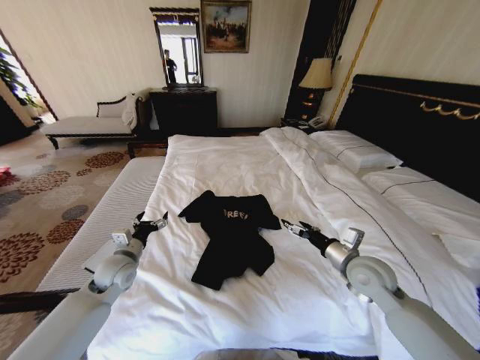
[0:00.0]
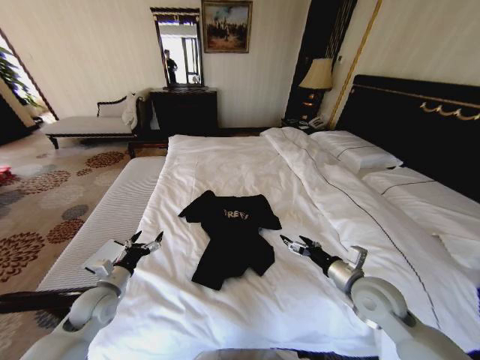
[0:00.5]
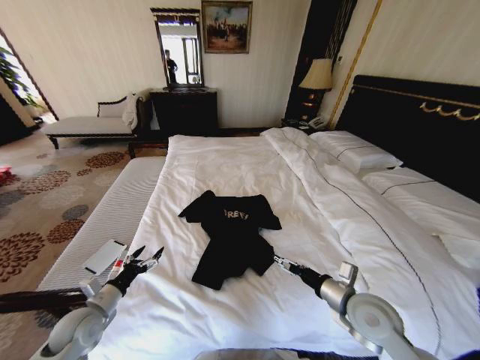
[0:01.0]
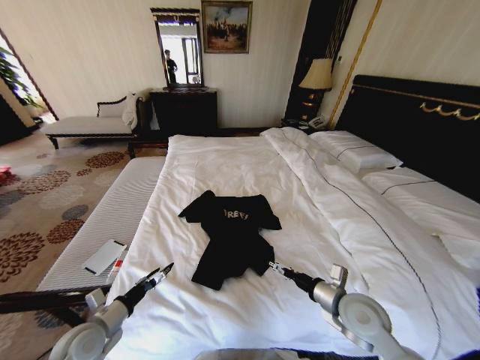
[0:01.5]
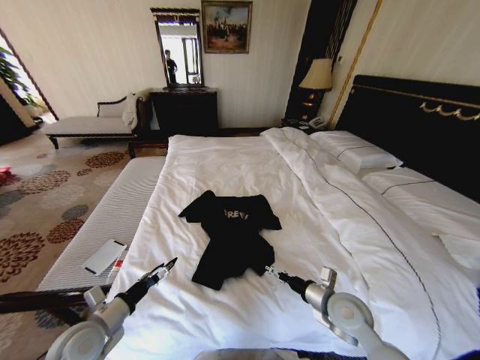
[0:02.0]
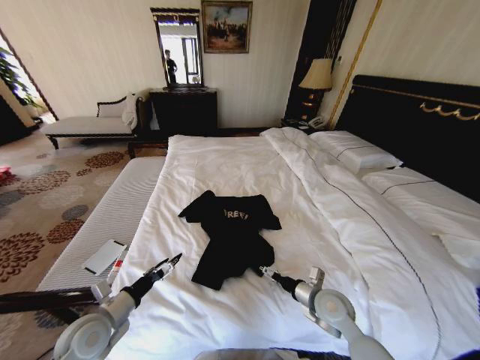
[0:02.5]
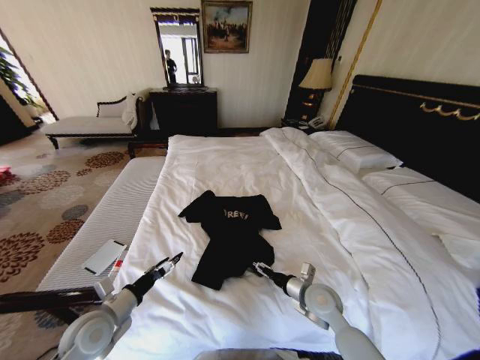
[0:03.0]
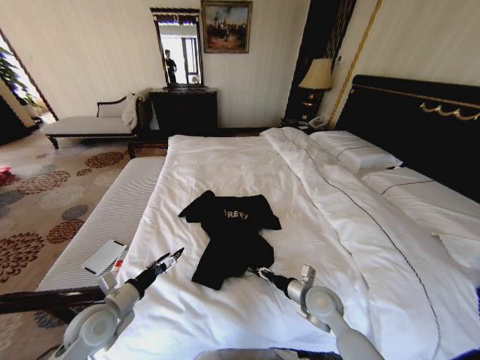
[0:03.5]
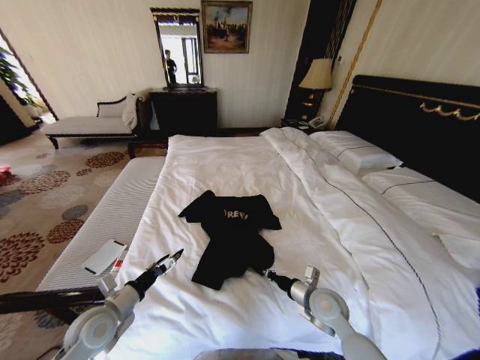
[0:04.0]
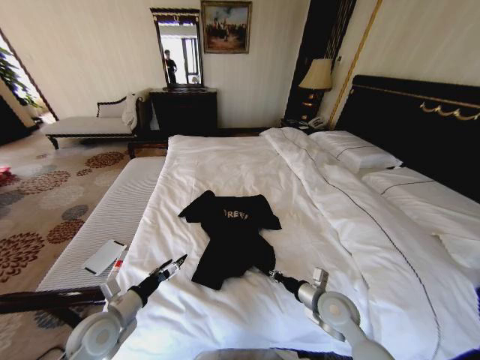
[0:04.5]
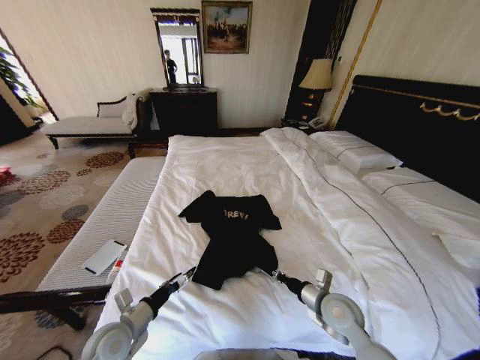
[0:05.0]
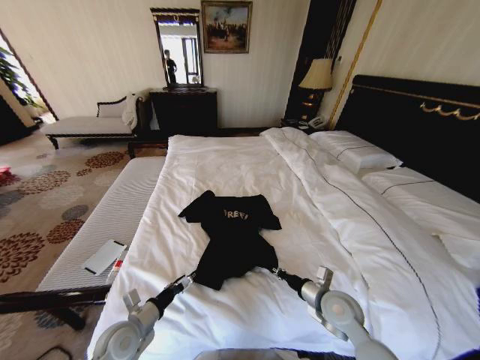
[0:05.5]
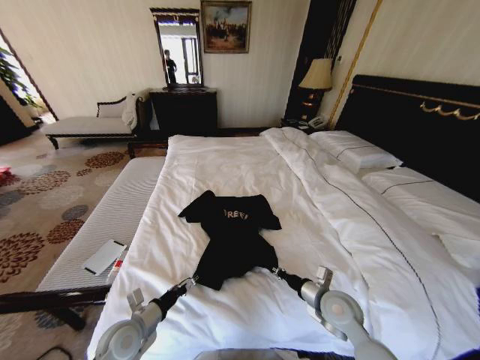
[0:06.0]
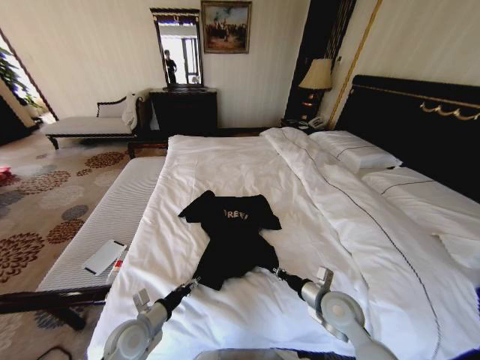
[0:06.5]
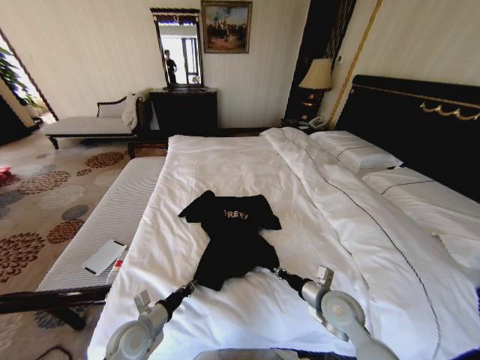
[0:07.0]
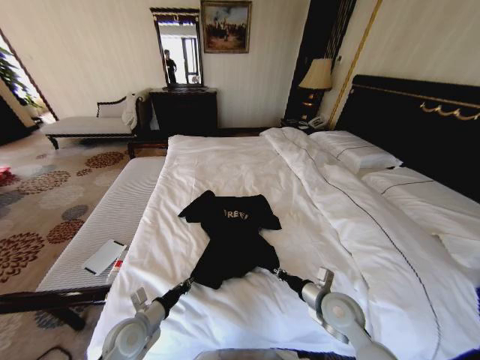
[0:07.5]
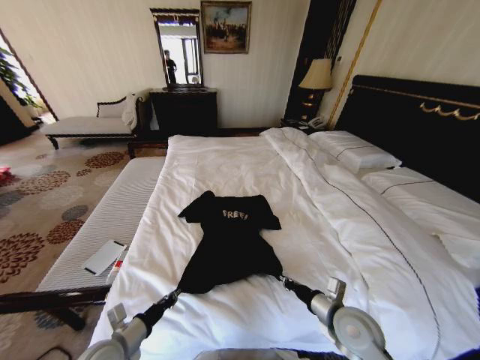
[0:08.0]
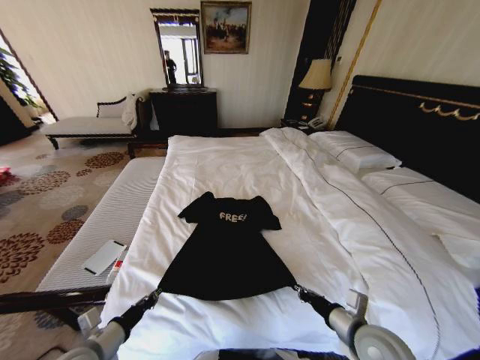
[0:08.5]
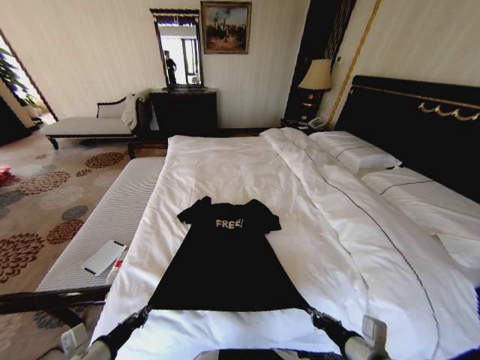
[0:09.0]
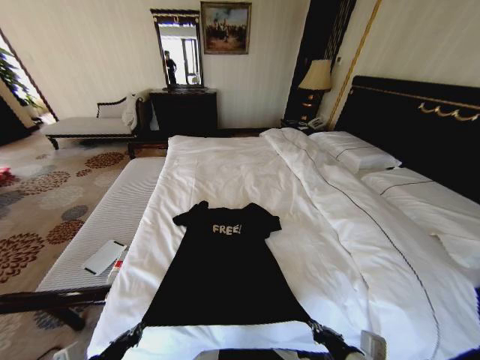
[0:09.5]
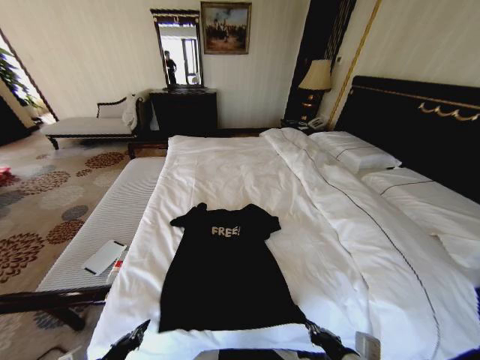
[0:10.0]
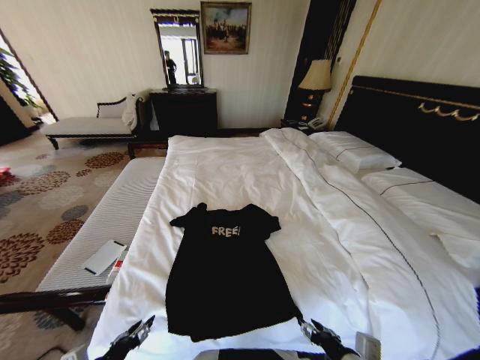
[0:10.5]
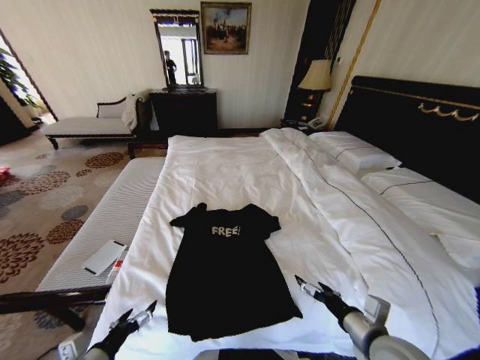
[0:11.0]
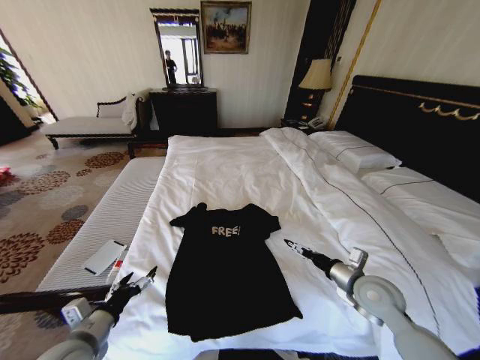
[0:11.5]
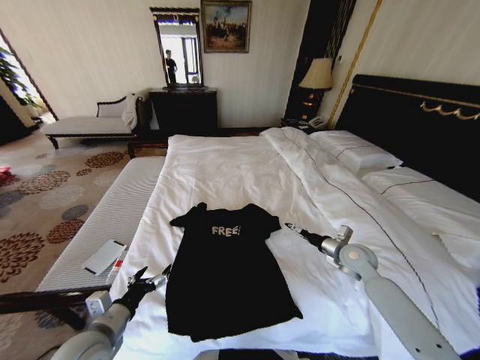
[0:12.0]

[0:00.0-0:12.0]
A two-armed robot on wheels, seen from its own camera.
Task of the whole recording: Fold the clothes on the bed.
0:00.0 to 0:02.0: The right gripper is displaced downward, backward and to the left by about 10 cm; the left gripper goes some 15 cm backward.
0:02.0 to 0:04.0: The right gripper moves about 5 cm, and closes up.
0:04.0 to 0:06.0: The left gripper travels downward by approximately 5 cm.
0:06.0 to 0:08.0: The left gripper closes.
0:08.0 to 0:10.0: Both grippers travel together backward, roughly 10 cm.
0:10.0 to 0:12.0: The left gripper is displaced forward by roughly 10 cm, and opens its fingers. Meanwhile the right gripper heads forward, covering some 30 cm, and opens.

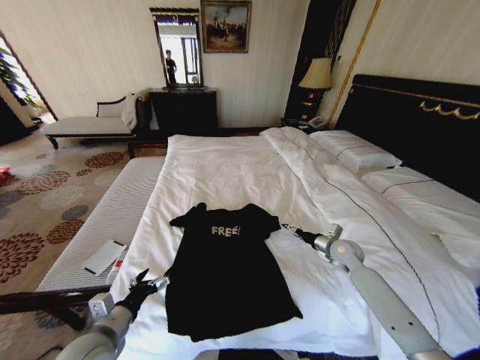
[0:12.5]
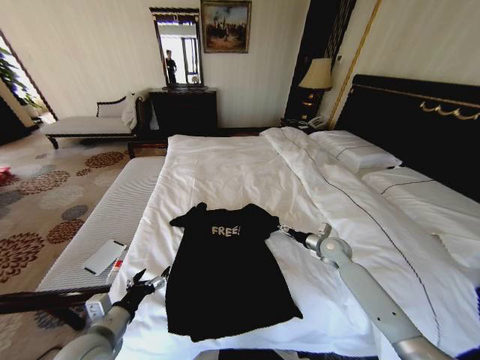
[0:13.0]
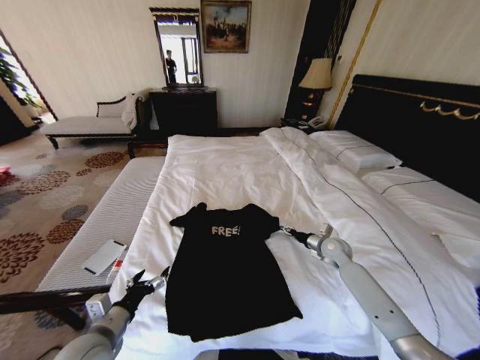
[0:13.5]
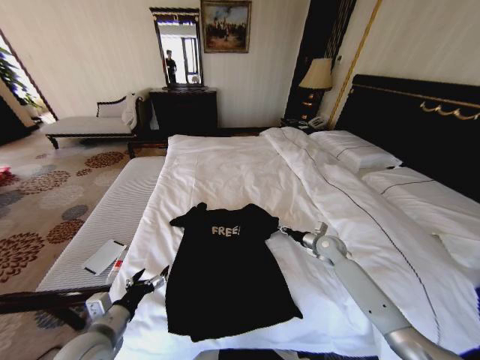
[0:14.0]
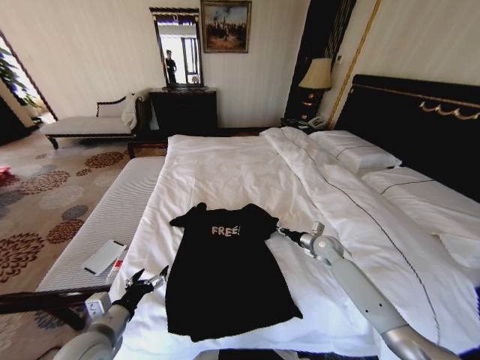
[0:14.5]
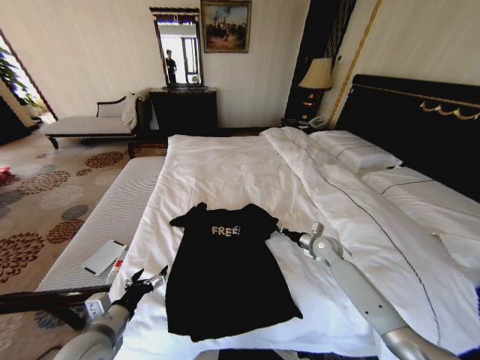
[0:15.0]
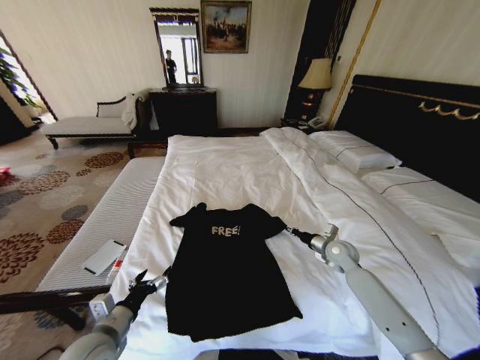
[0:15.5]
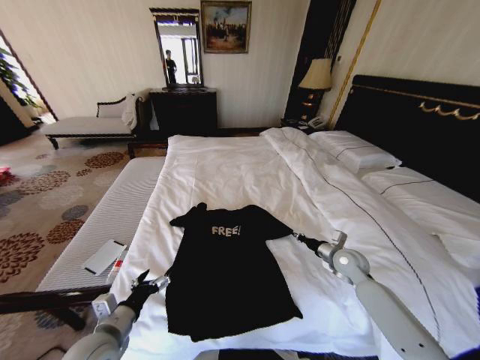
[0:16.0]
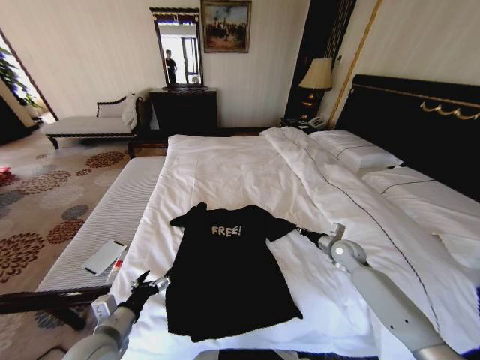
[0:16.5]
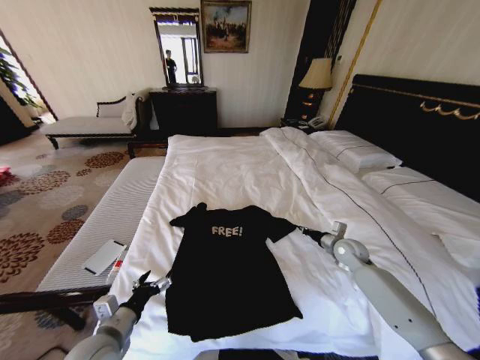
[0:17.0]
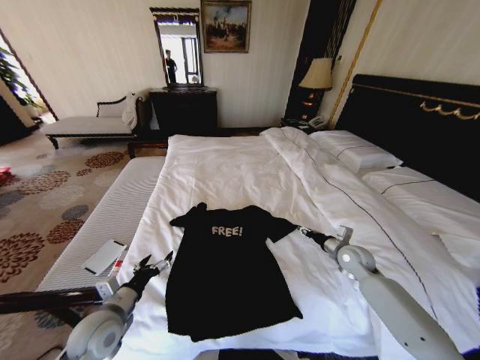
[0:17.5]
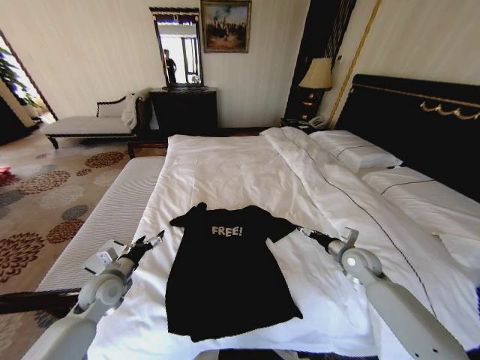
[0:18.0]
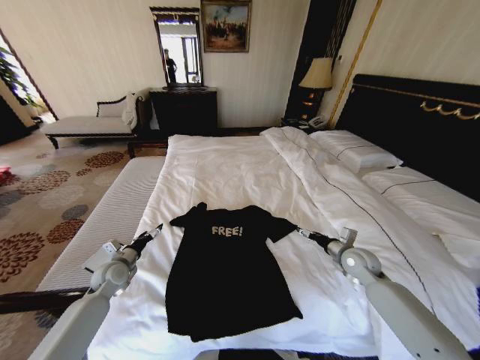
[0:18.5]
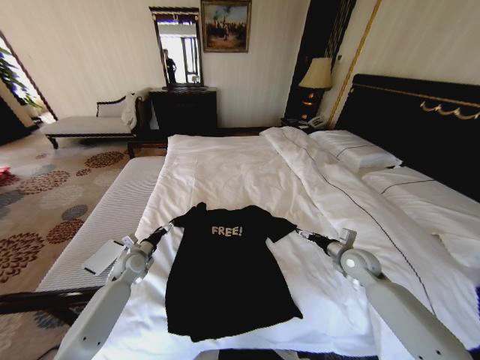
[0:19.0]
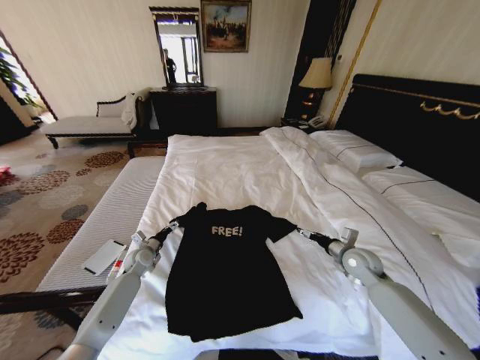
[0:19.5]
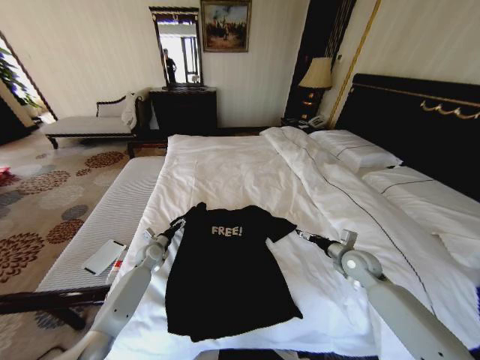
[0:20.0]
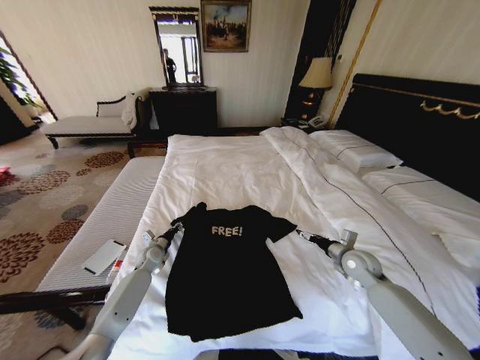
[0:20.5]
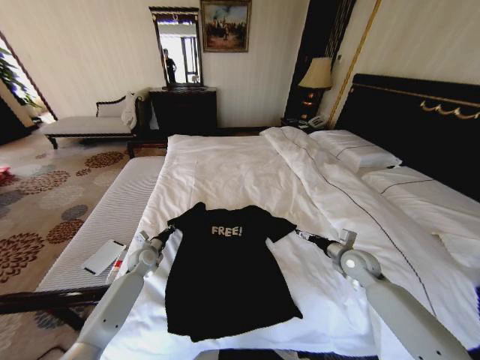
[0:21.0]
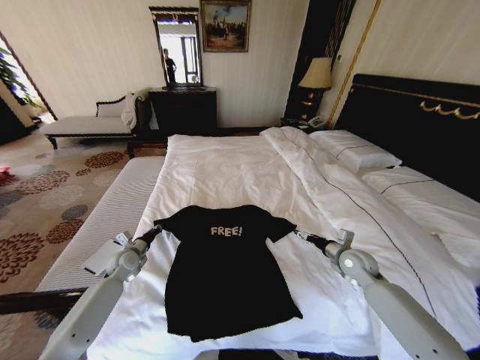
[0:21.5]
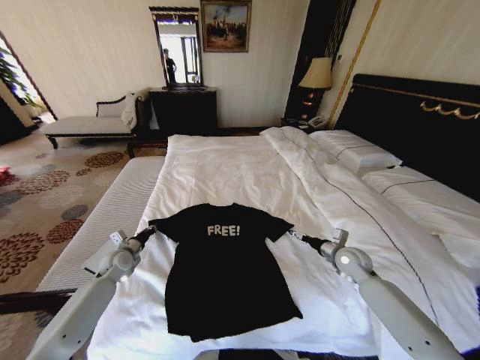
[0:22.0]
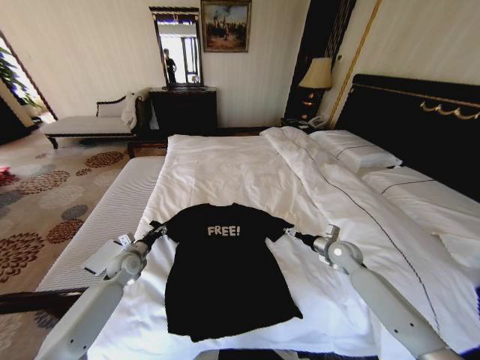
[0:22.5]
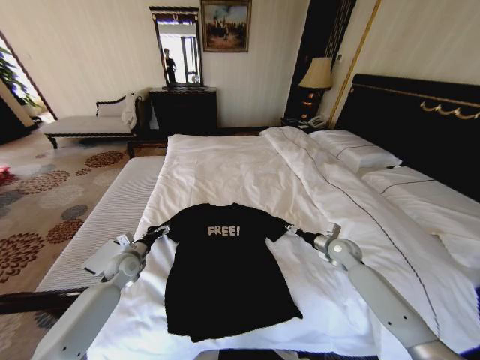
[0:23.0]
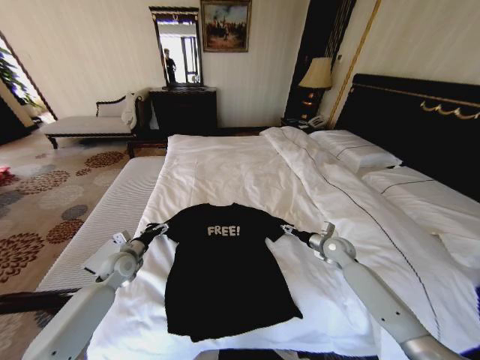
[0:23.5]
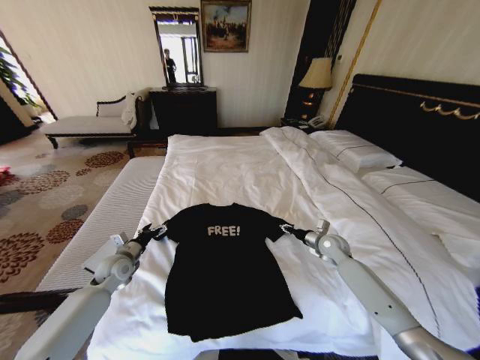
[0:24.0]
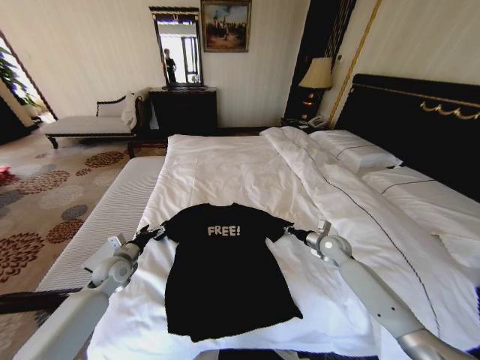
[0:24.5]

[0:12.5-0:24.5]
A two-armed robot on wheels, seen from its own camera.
Task of the whole recording: Fold the clothes on the bed.
0:12.5 to 0:14.5: The right gripper shifts by approximately 5 cm, and closes its fingers.
0:14.5 to 0:16.5: The right gripper ends up approximately 5 cm from where it was, and closes up.
0:16.5 to 0:18.5: The right gripper moves roughly 5 cm, and opens up. Meanwhile the left gripper moves forward and to the left, approximately 20 cm.
0:18.5 to 0:20.5: The left gripper goes roughly 15 cm forward, to the right and downward, and closes up.
0:20.5 to 0:22.5: The left gripper travels backward by some 5 cm, and closes, then opens again.
0:22.5 to 0:24.5: The right gripper closes its fingers, while the left gripper opens up.

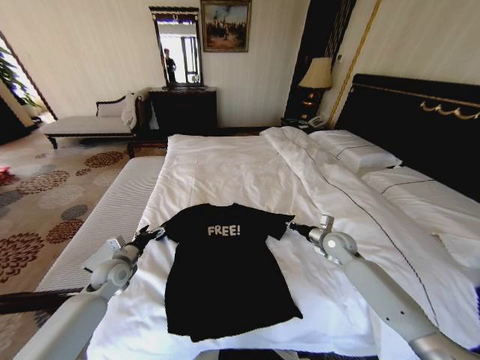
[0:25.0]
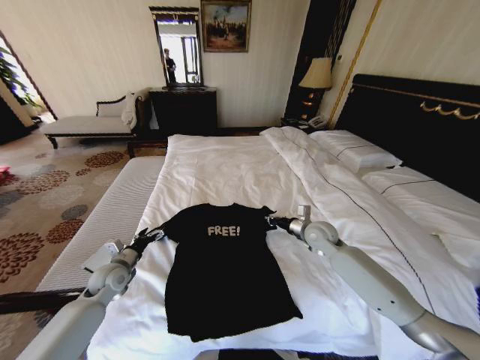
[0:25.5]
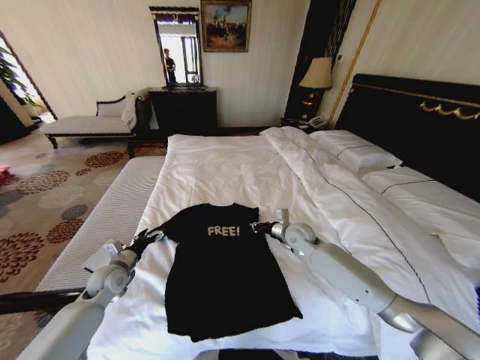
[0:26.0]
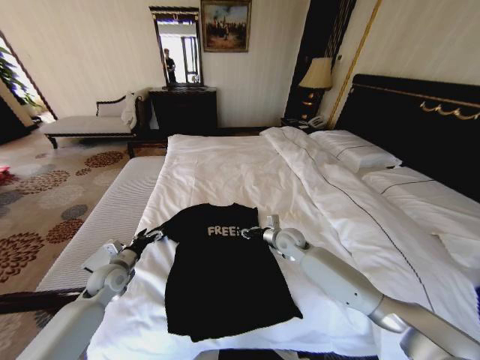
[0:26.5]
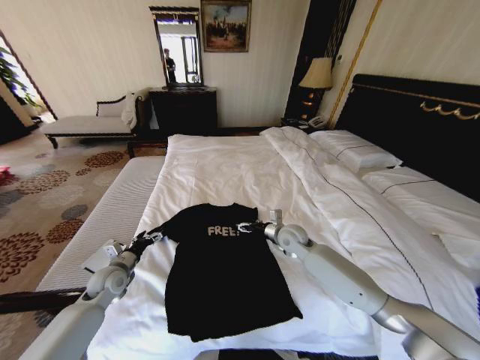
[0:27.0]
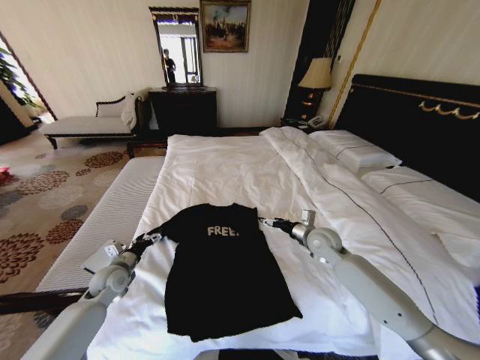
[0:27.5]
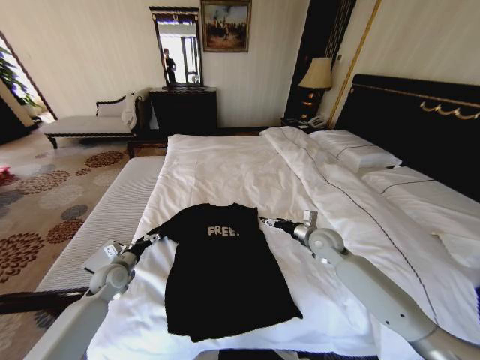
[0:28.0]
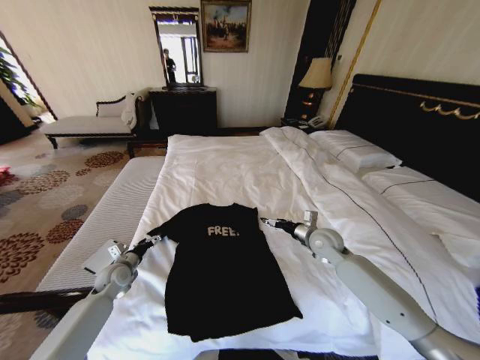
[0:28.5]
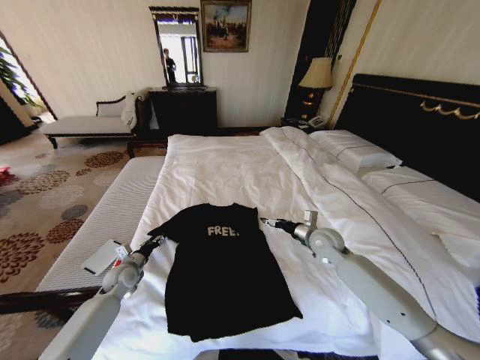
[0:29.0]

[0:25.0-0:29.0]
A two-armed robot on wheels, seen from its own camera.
Task of the whole recording: Fold the clothes on the bed.
0:25.0 to 0:27.0: The right gripper shifts approximately 15 cm to the left, and opens.
0:27.0 to 0:29.0: The left gripper changes place by approximately 5 cm, and closes its fingers. Meanwhile the right gripper moves to the right, approximately 10 cm.
